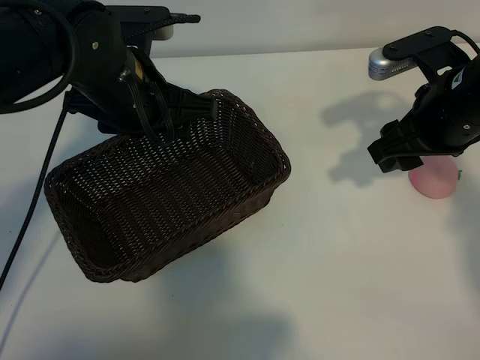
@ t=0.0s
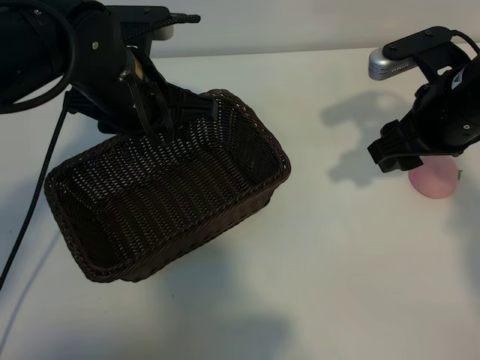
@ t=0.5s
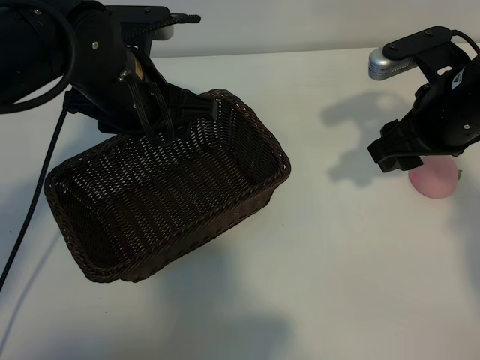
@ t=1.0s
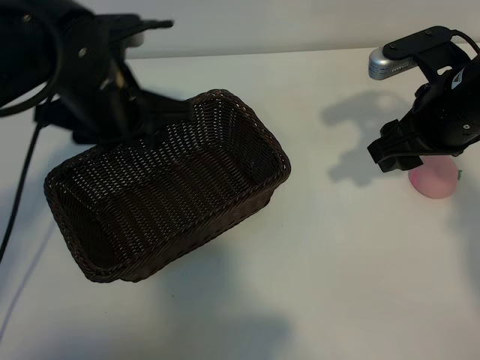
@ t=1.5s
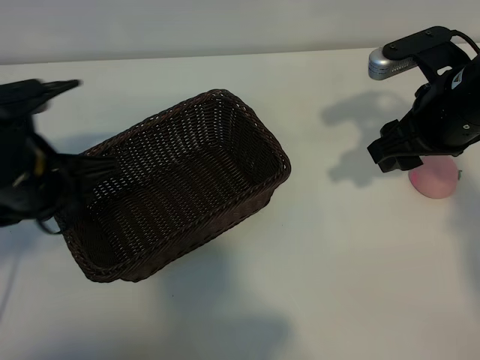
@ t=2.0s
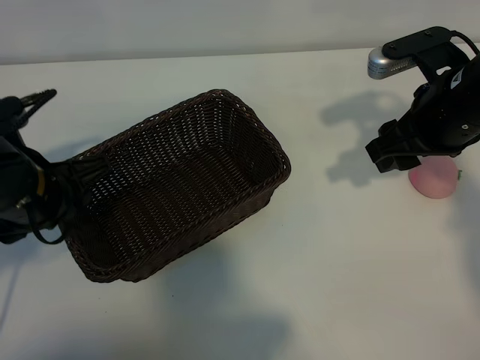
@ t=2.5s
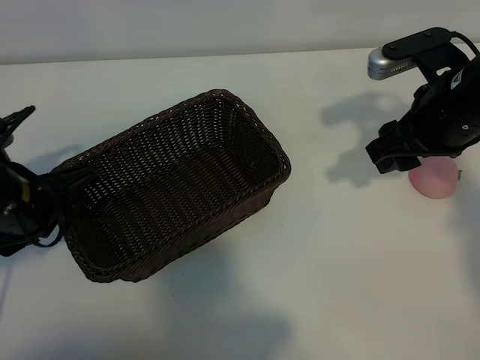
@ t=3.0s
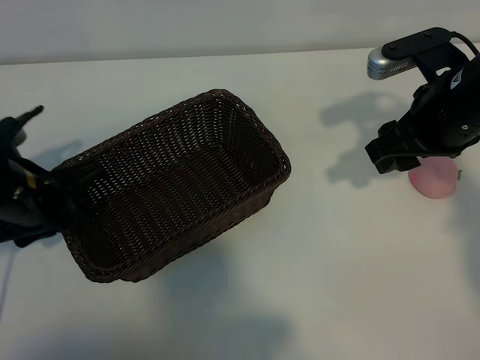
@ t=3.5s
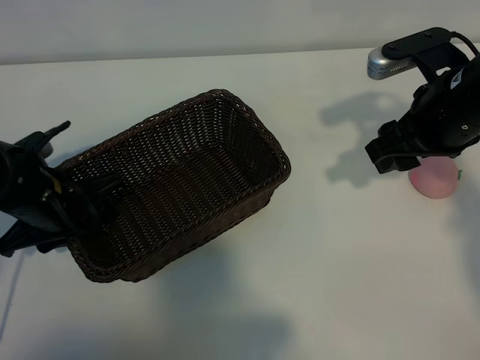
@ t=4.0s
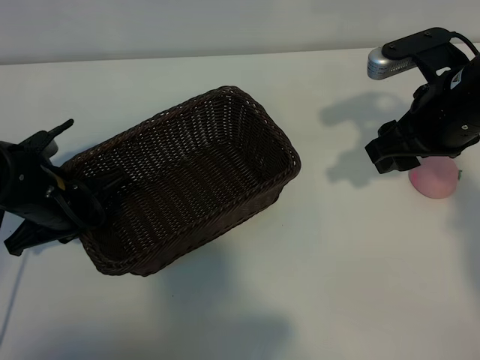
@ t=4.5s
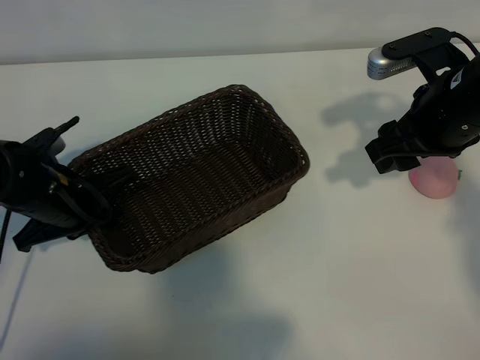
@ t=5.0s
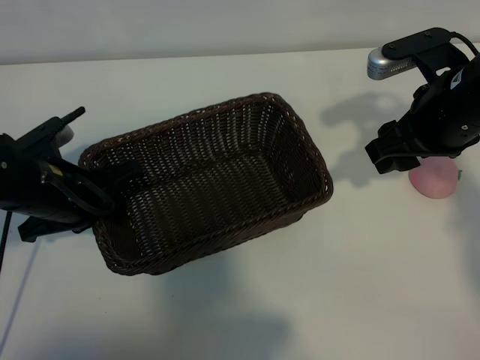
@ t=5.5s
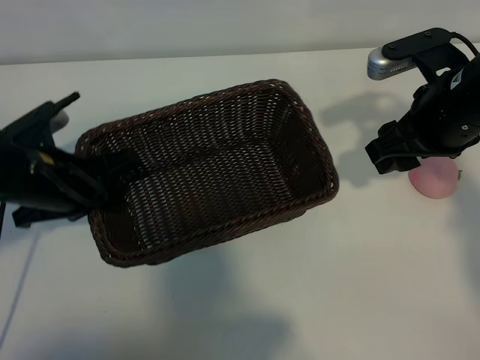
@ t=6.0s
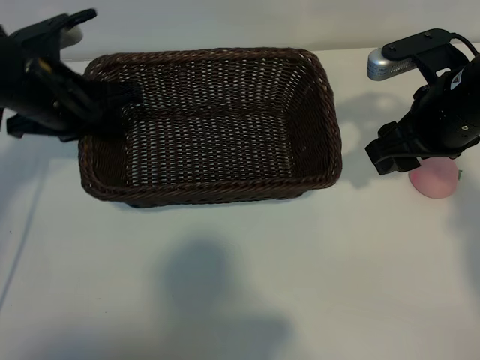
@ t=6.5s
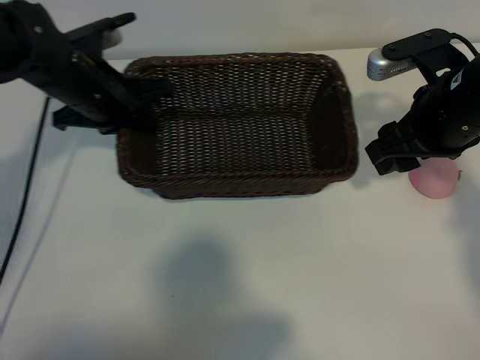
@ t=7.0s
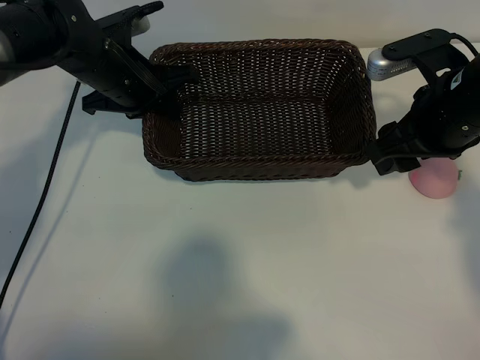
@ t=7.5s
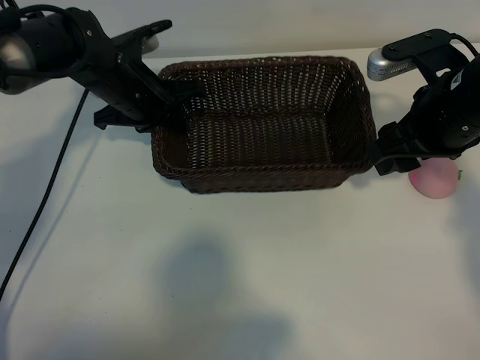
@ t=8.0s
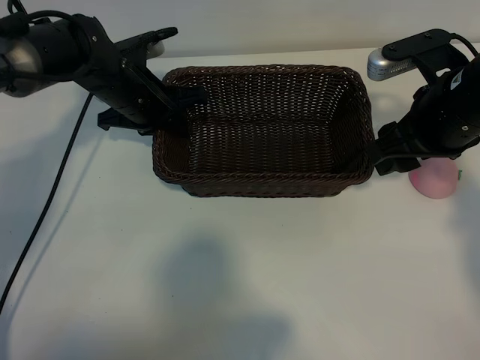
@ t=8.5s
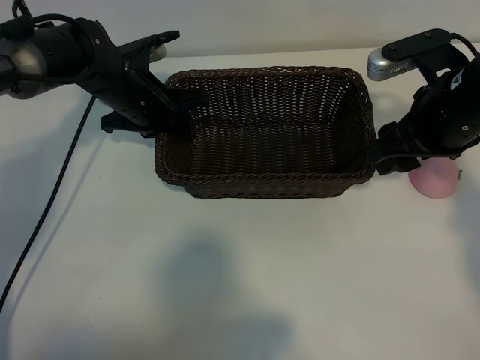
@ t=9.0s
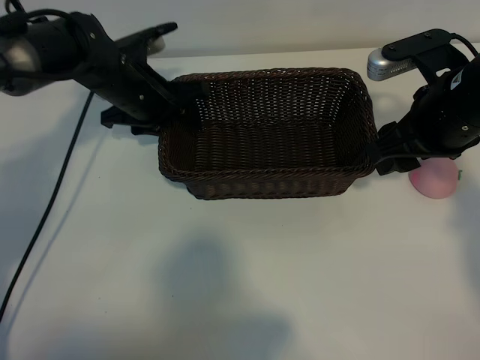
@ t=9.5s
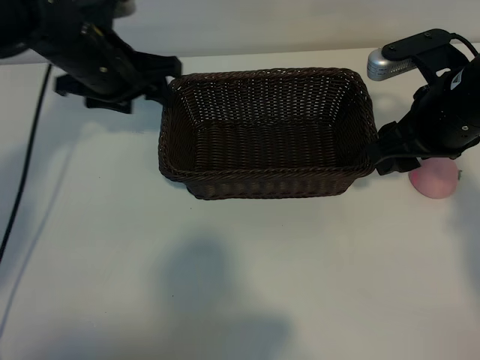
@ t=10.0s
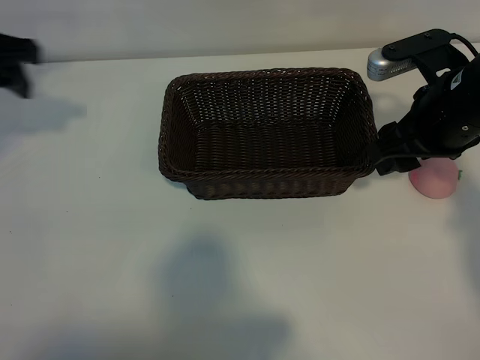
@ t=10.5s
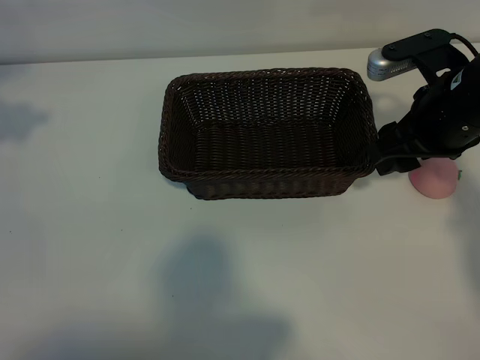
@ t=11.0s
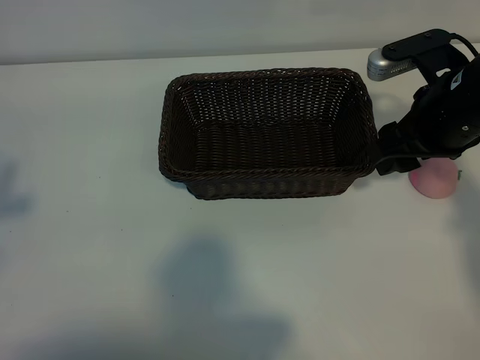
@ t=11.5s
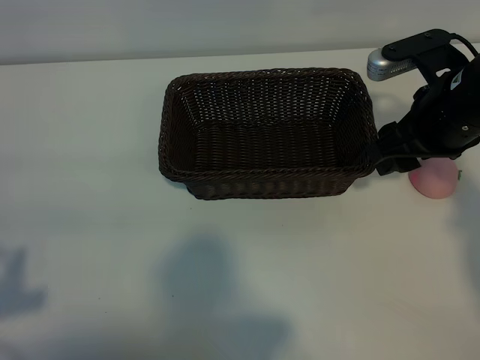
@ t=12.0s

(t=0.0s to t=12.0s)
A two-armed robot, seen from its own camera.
Task of the whole recording: pick up the peach and put it into the basket.
Step, t=1.5s - t=4.5s: Grasp the basket with left gripper.
Step, t=5.0s - t=9.5s: Place the basket in the center of view with left gripper.

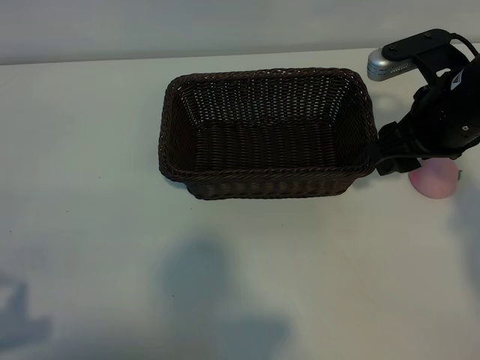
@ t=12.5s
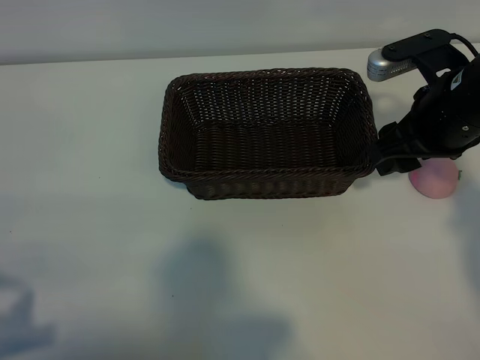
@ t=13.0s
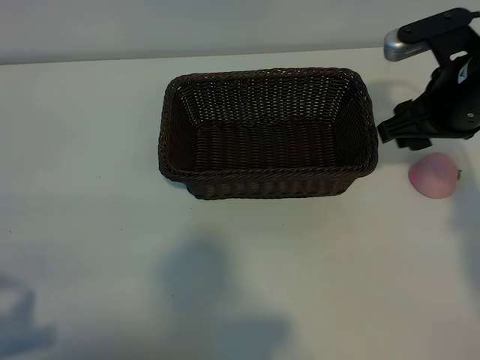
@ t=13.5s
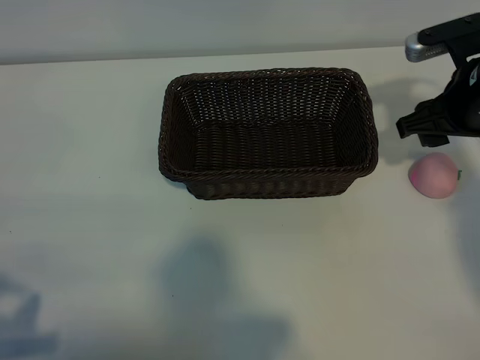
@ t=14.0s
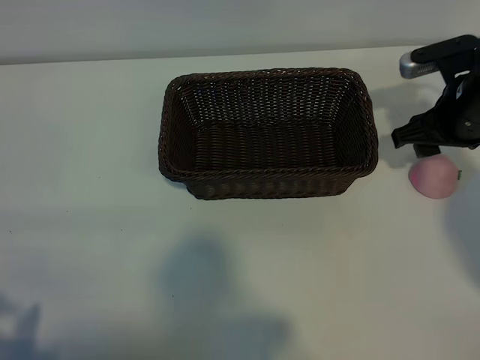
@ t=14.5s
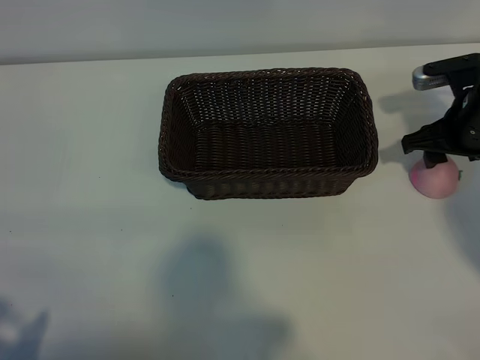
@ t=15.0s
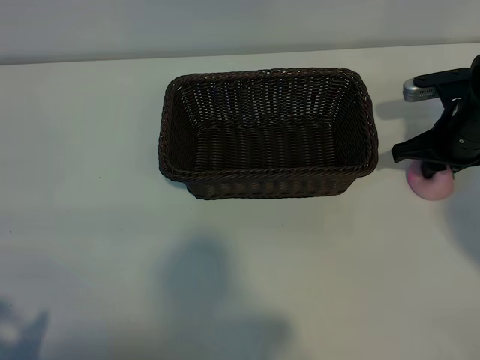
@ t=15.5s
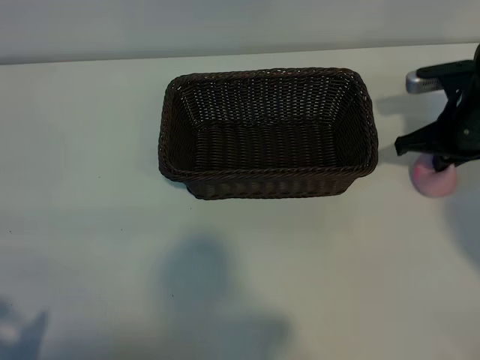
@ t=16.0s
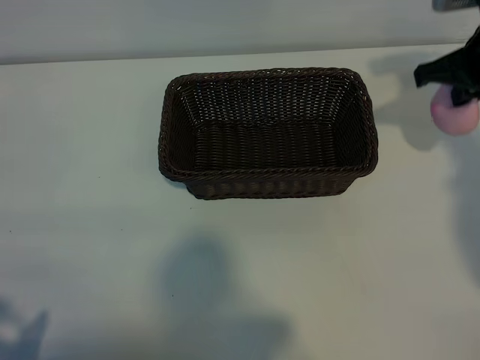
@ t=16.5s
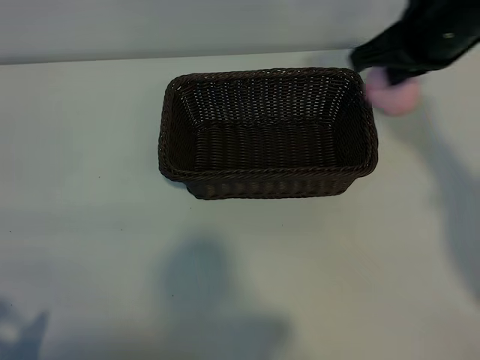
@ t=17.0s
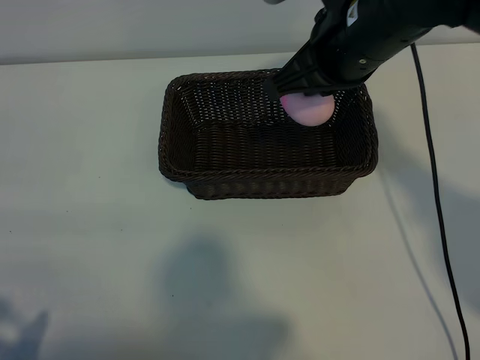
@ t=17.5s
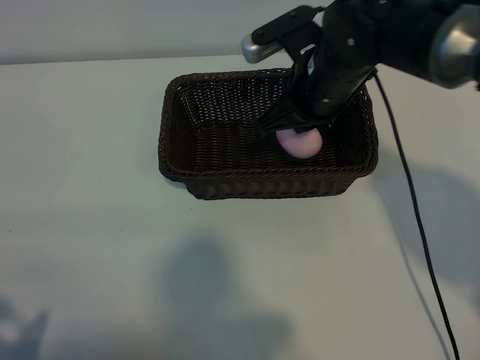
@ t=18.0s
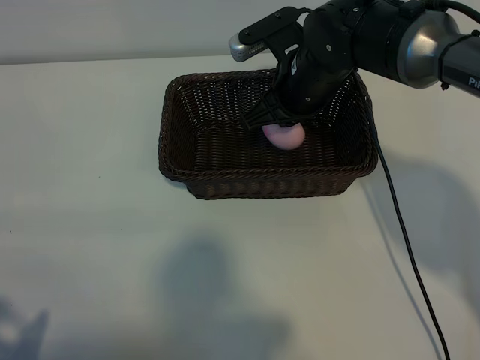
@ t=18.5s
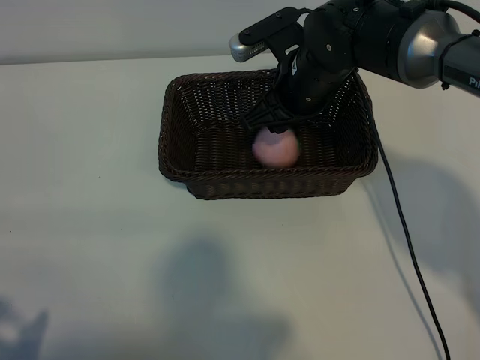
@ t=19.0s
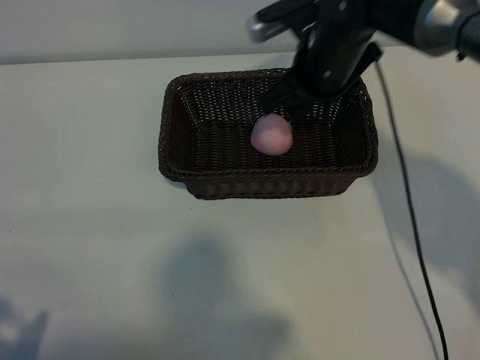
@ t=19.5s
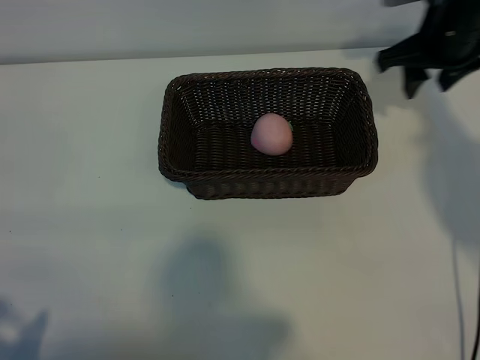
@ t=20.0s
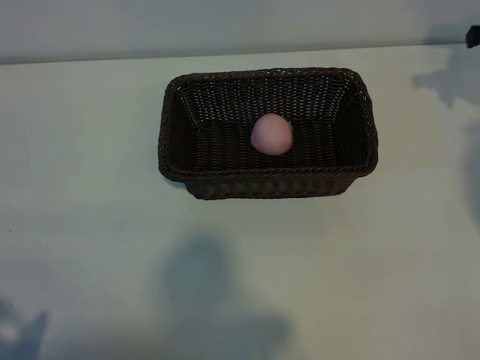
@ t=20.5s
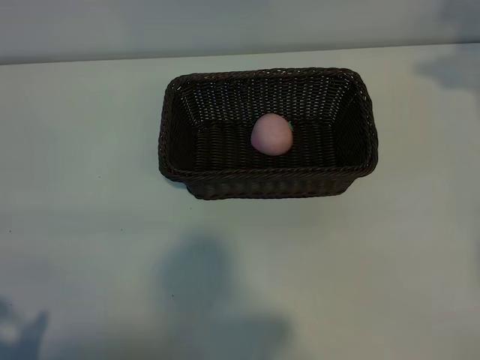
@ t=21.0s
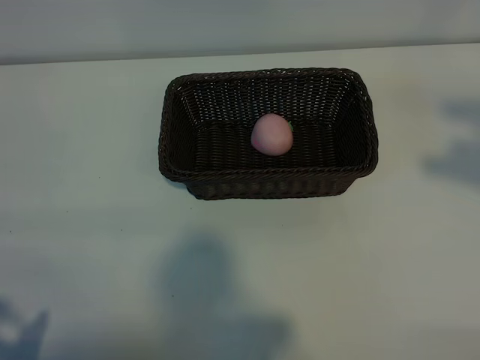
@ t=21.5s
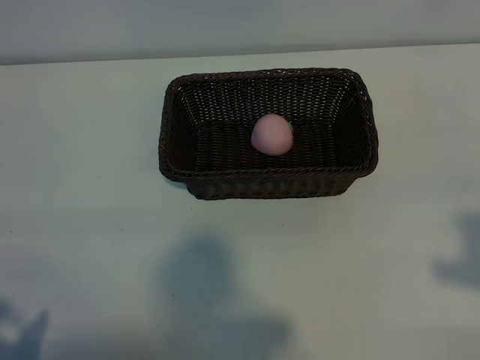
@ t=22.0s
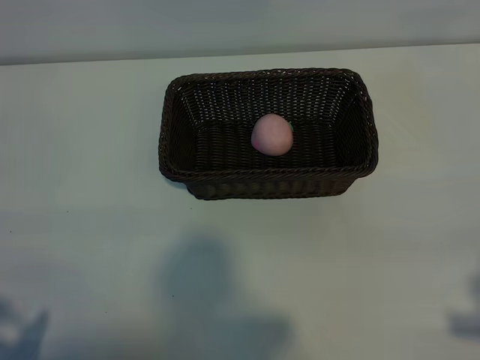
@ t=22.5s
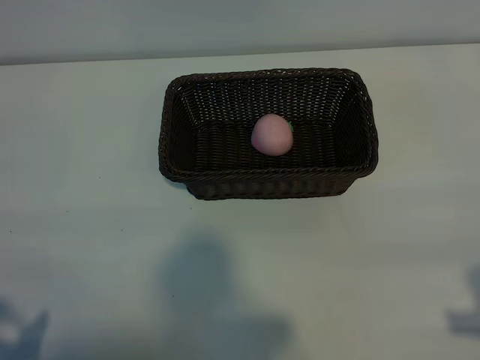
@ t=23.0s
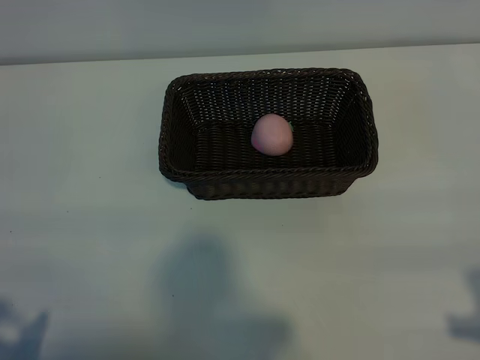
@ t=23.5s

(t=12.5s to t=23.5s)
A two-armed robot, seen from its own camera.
Task of the whole recording: pick up the peach and put it into the basket.
Step, t=12.5s - t=15.5s: Grasp the peach with right gripper.
Step, t=16.5s - t=19.0s: Place the peach in the basket with right gripper.

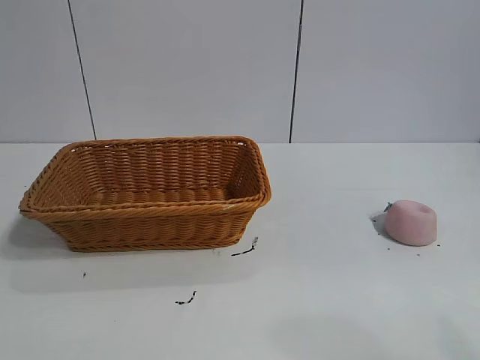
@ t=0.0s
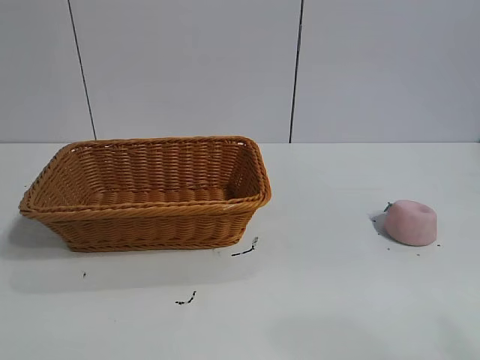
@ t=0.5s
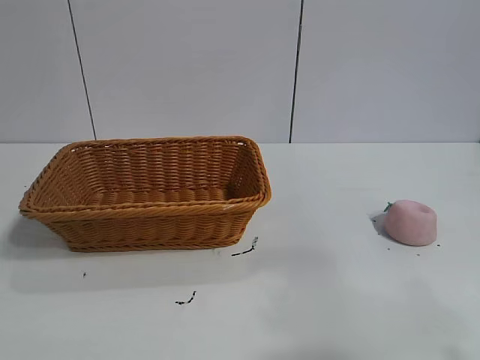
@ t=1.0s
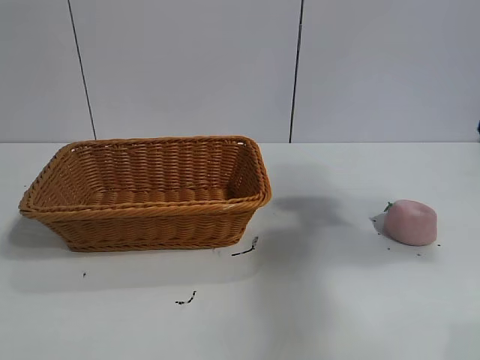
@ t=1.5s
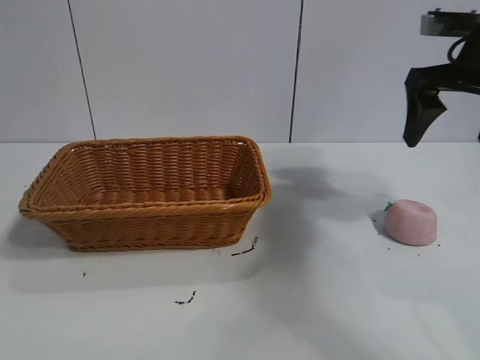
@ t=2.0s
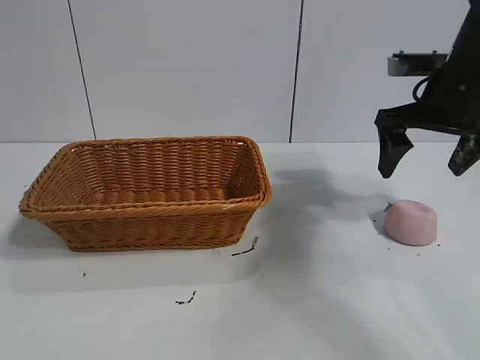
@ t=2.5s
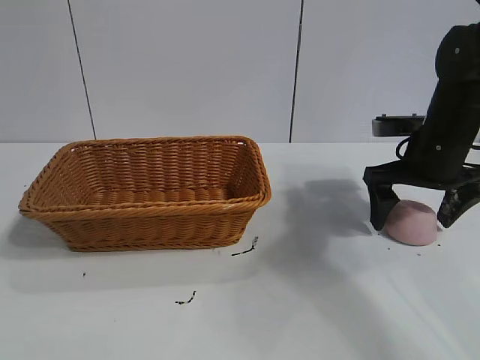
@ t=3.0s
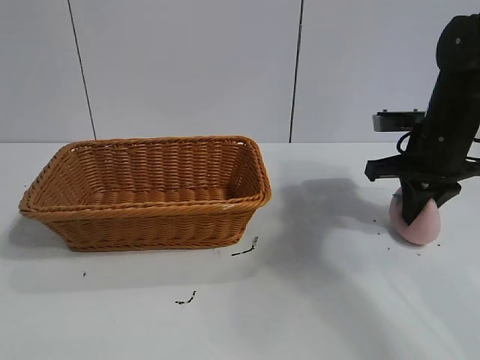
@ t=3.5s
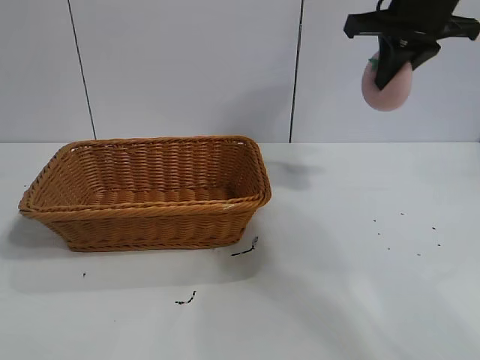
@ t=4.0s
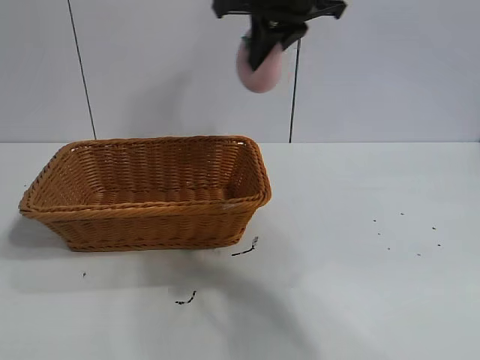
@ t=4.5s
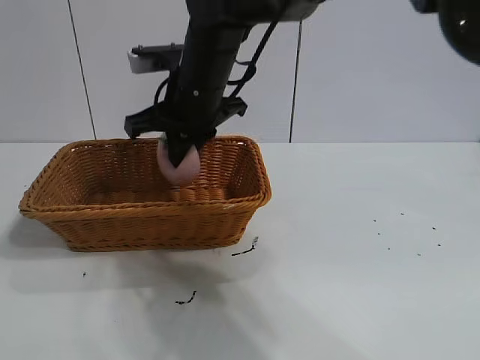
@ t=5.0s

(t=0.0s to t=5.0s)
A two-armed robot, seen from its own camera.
Task of the whole recording: pick up the peach and put it into the basket.
Step, t=1.0s - t=3.0s: Grasp the peach with right gripper.
